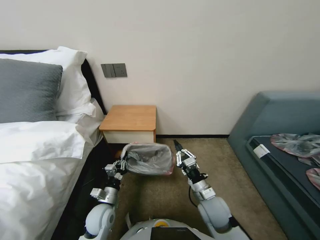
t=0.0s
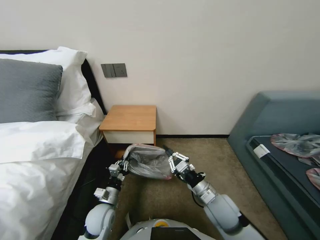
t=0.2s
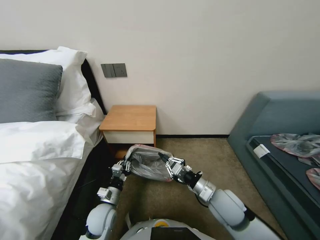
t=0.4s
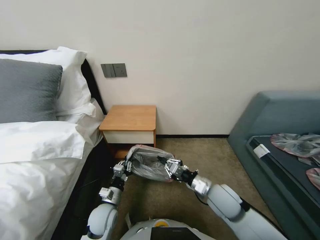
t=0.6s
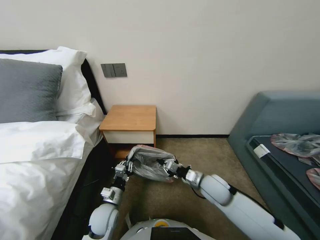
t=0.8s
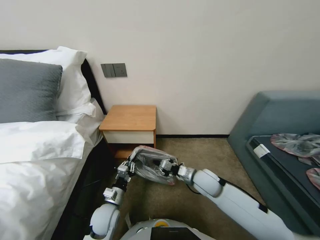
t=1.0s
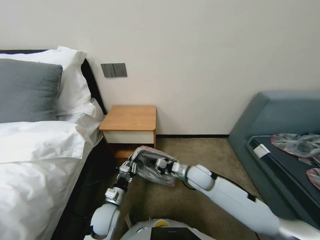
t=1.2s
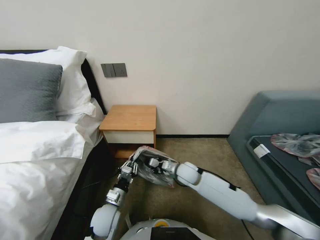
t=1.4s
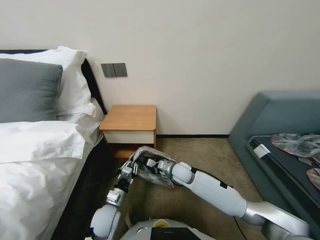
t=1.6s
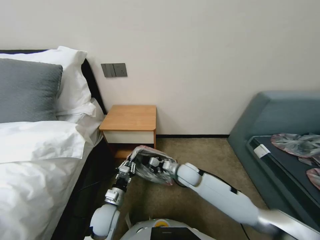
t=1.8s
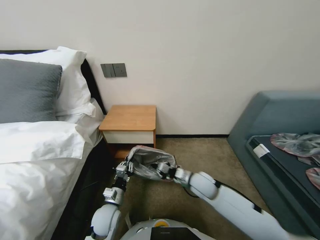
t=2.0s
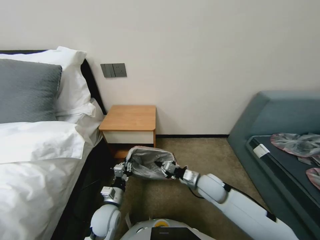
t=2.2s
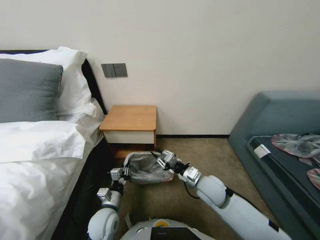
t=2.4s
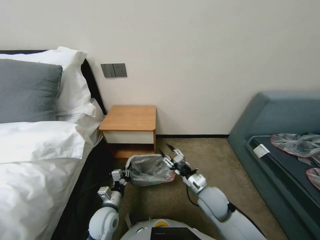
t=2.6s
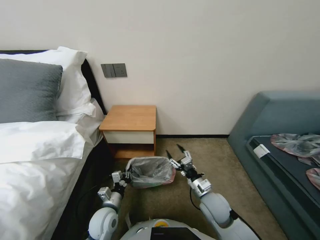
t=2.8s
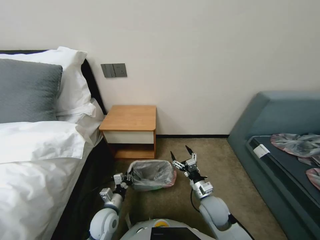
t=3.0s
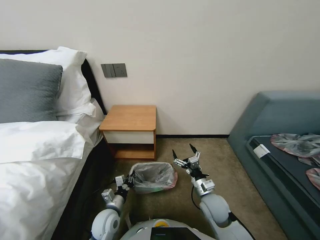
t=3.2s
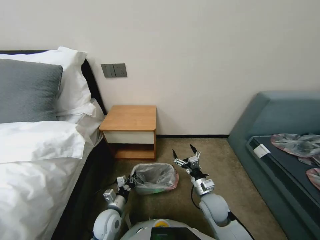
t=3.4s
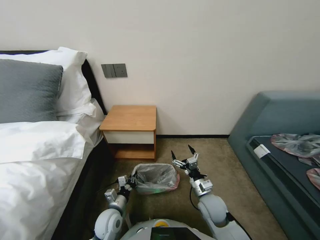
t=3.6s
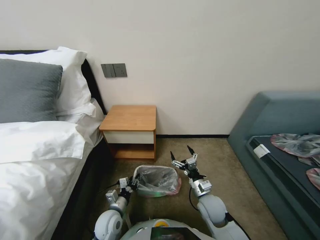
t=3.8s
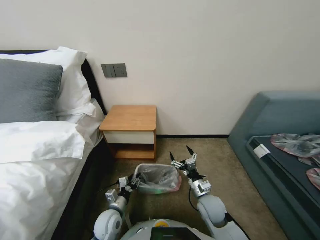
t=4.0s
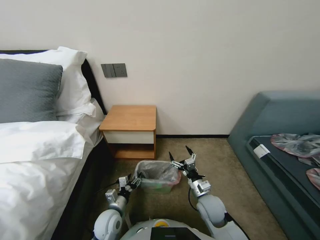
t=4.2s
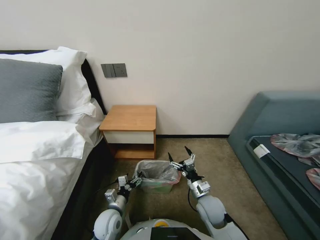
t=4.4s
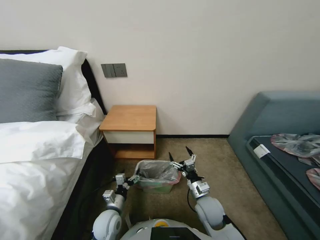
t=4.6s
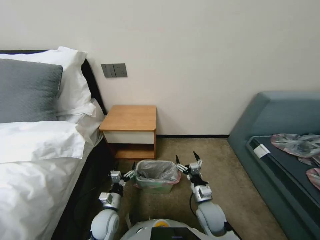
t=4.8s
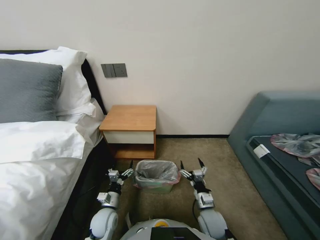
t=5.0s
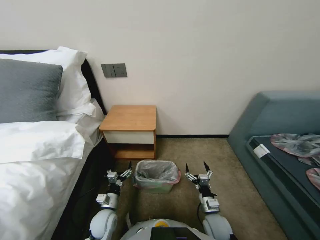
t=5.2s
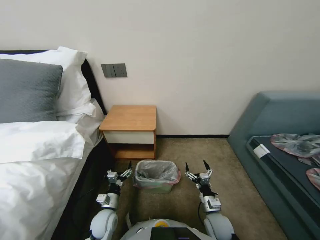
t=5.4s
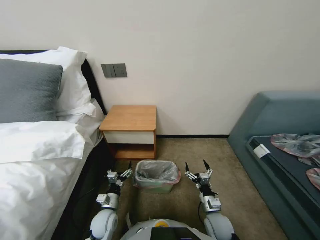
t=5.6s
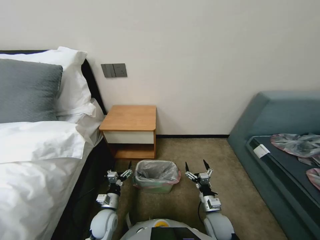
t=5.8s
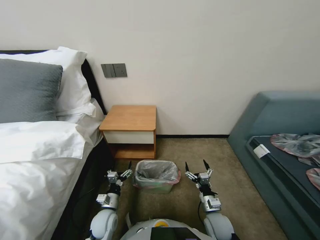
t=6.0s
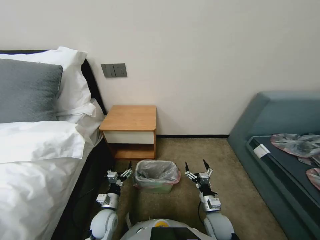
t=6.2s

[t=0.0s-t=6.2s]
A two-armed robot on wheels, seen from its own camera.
Task of the whole recording: Pick up the garbage bag from the table and place it over the trash can.
t=0.0s to t=1.6s: The right gripper is displaced forward and to the left by roughly 15 cm.
t=1.6s to t=3.2s: The right gripper shifts approximately 15 cm backward and to the right, and opens up.
t=3.2s to t=4.6s: The left gripper opens.
t=4.6s to t=6.2s: The right gripper travels downward by roughly 5 cm.
